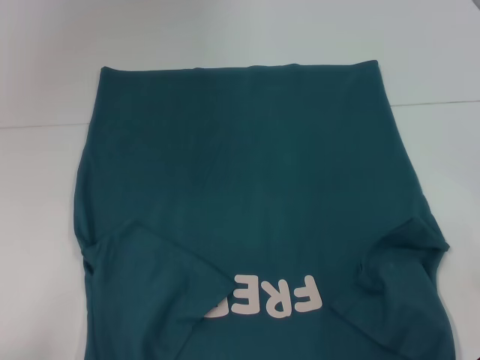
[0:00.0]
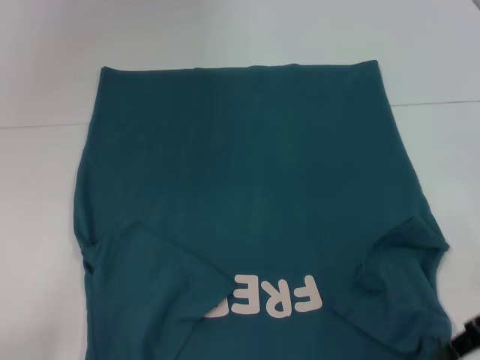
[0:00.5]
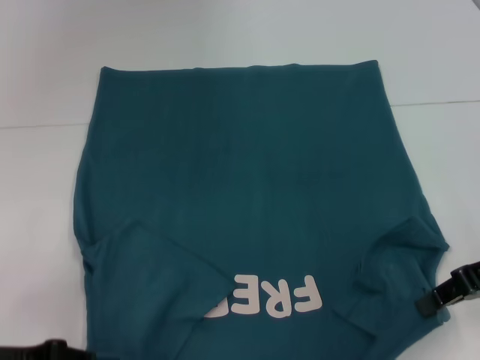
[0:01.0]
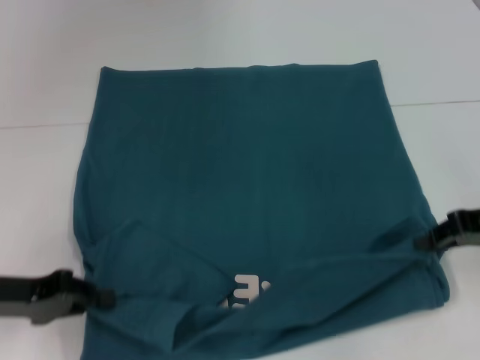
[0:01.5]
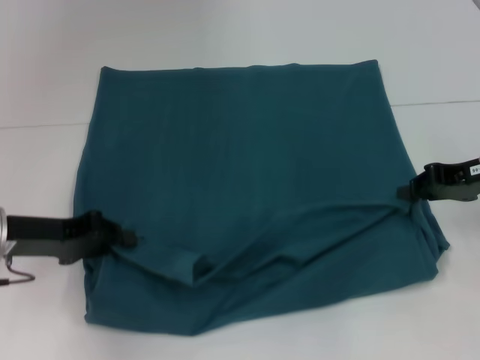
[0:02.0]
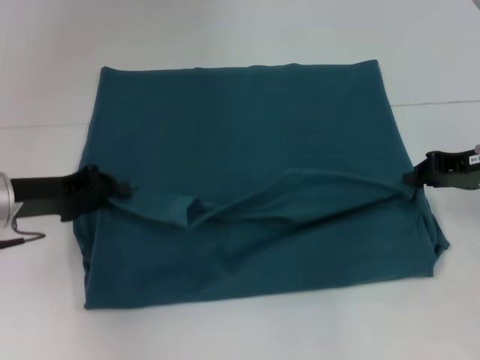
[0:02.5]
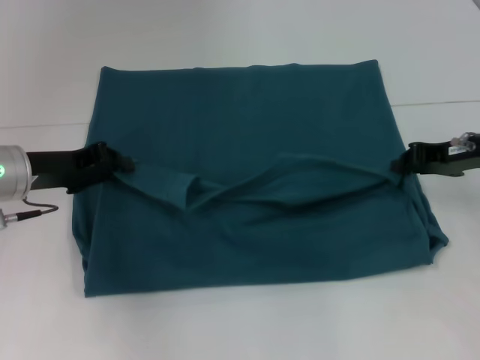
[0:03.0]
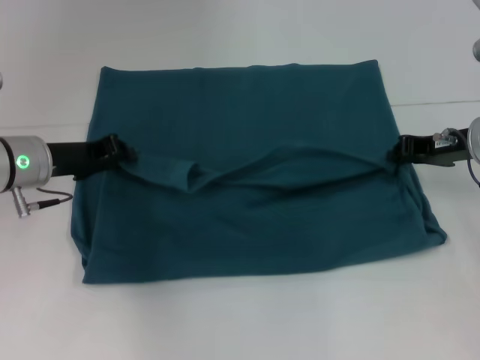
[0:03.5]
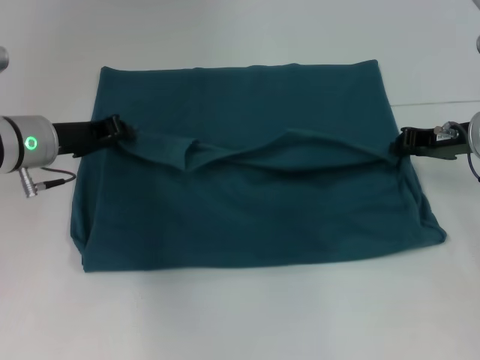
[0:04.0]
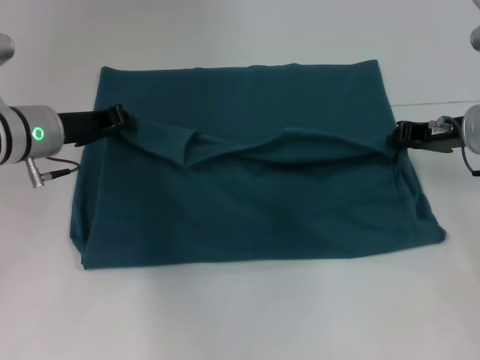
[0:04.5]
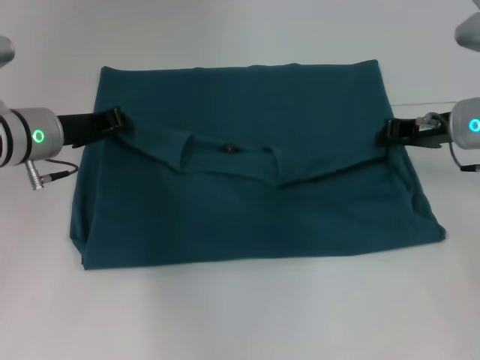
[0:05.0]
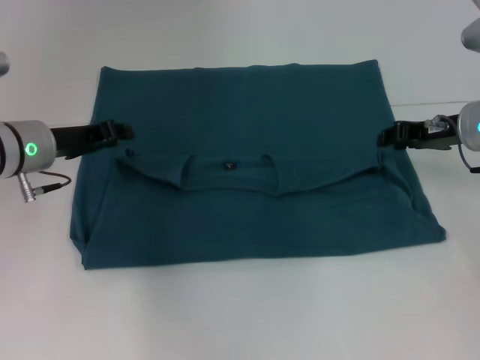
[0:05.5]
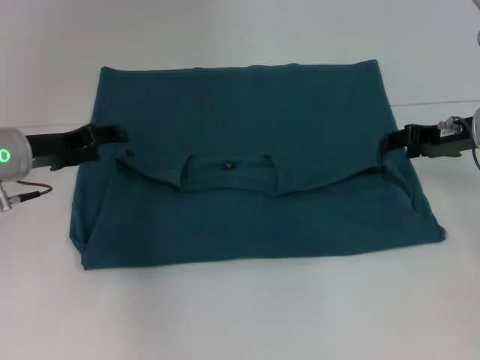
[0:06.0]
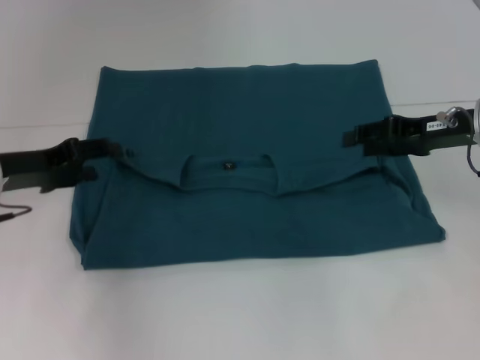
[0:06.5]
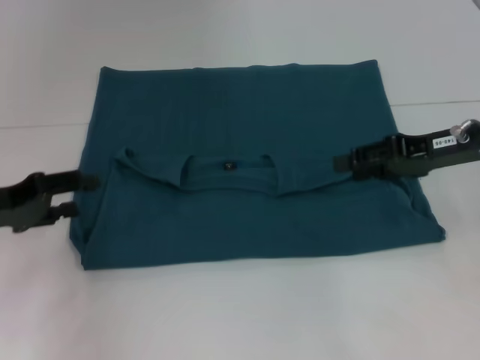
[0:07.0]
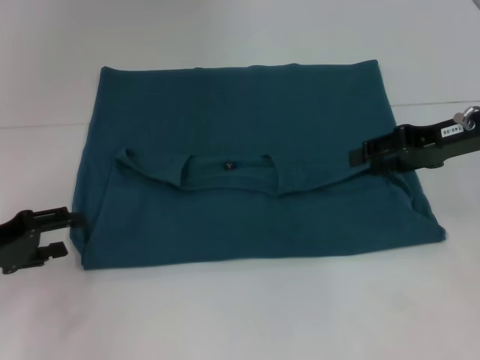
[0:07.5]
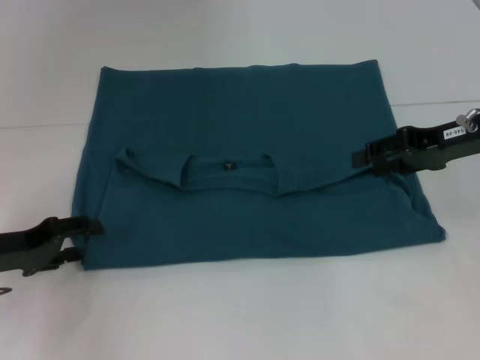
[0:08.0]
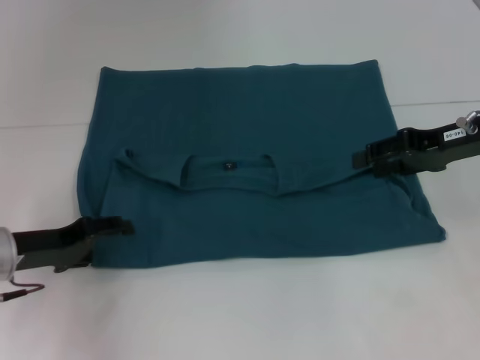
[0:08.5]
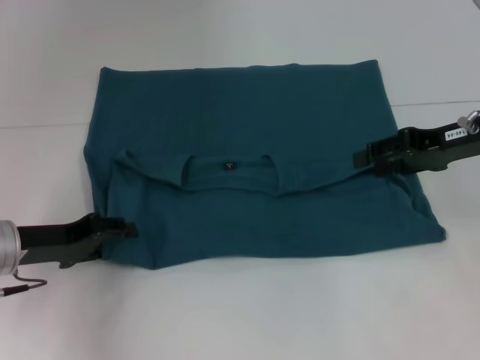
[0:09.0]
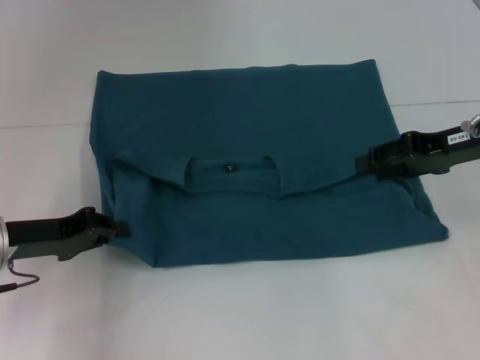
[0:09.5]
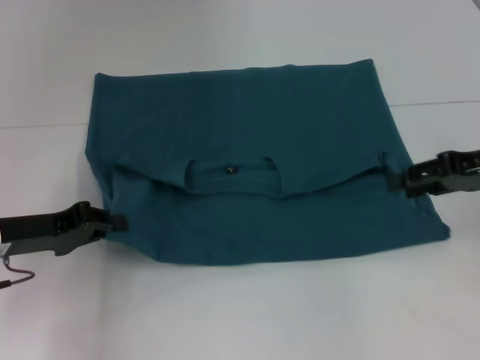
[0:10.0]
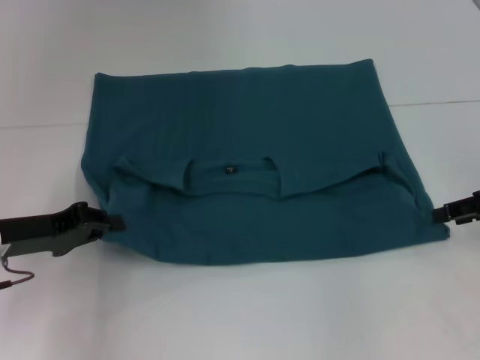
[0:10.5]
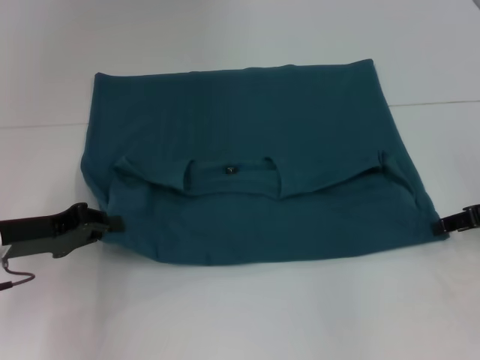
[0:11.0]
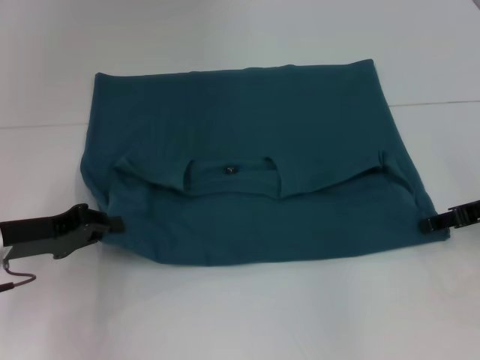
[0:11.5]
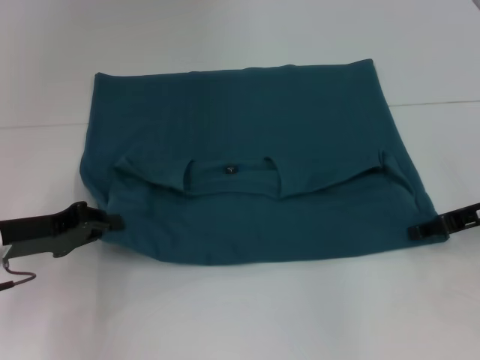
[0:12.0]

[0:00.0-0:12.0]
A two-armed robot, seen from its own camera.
Step, 0:00.0 to 0:05.5: Fold the clothes to the left.
Step, 0:00.0 to 0:05.5: Fold the clothes to the right.
0:00.0 to 0:02.0: The left gripper moves forward, about 15 cm. The right gripper is displaced forward by approximately 10 cm.
0:02.0 to 0:04.0: The left gripper travels forward by some 10 cm; the right gripper ends up approximately 5 cm from where it was.
0:04.0 to 0:06.0: The right gripper opens. The left gripper opens.
0:06.0 to 0:08.0: The left gripper travels backward, to the left and downward by about 10 cm, while the right gripper moves about 5 cm.
0:08.0 to 0:10.0: The left gripper closes.
0:10.0 to 0:12.0: The right gripper goes about 5 cm downward.

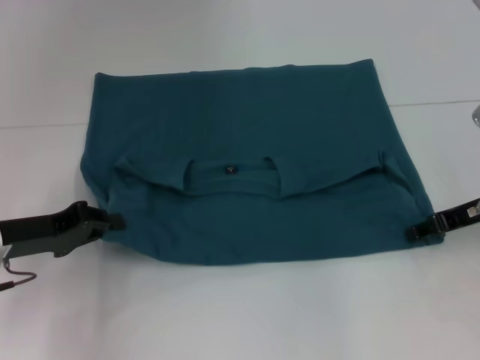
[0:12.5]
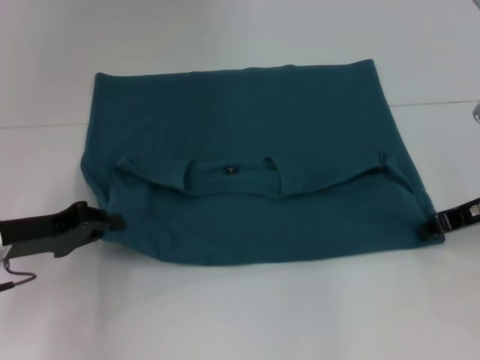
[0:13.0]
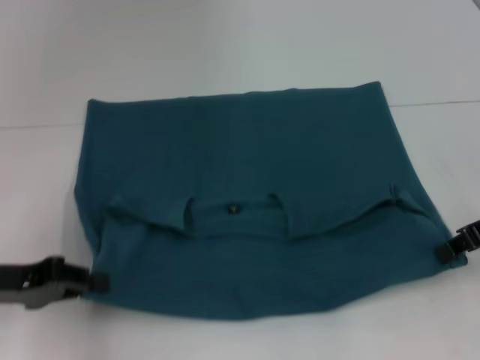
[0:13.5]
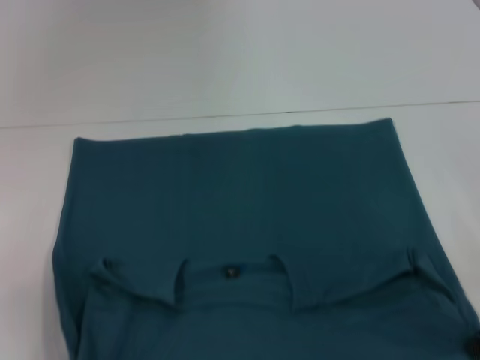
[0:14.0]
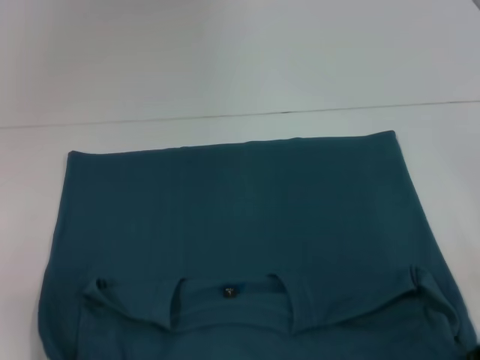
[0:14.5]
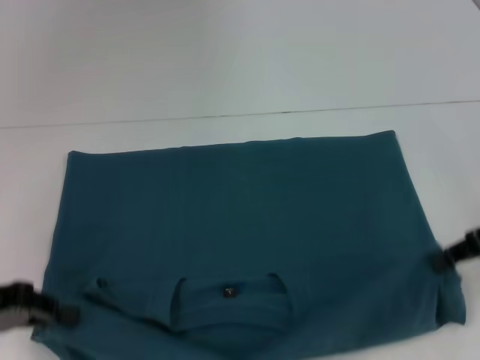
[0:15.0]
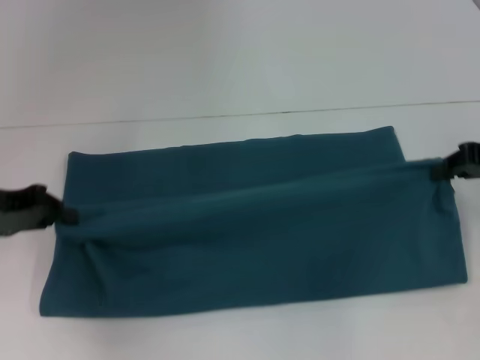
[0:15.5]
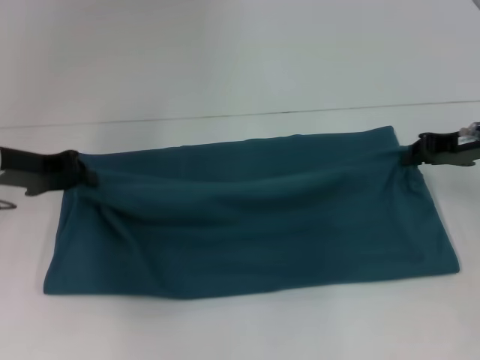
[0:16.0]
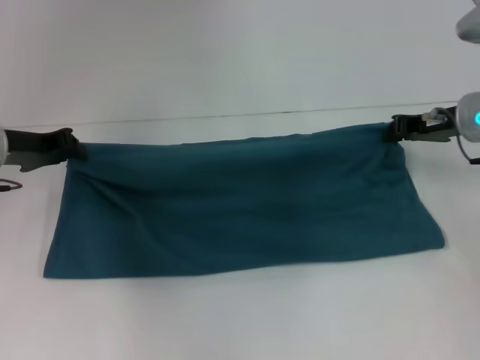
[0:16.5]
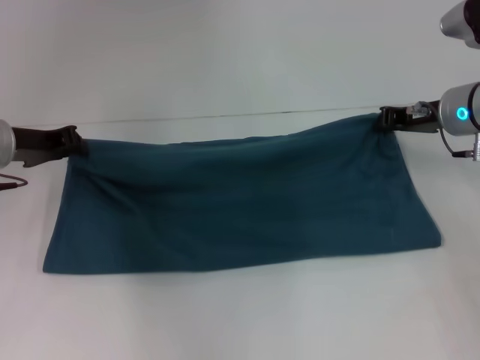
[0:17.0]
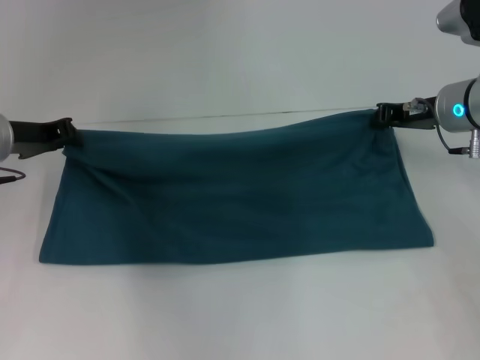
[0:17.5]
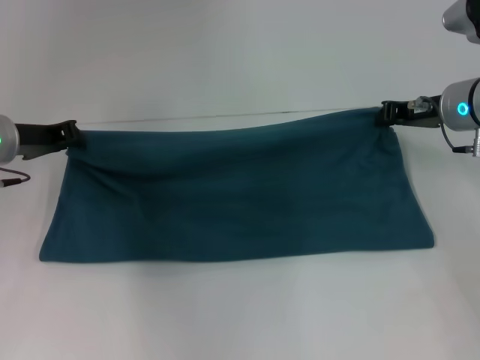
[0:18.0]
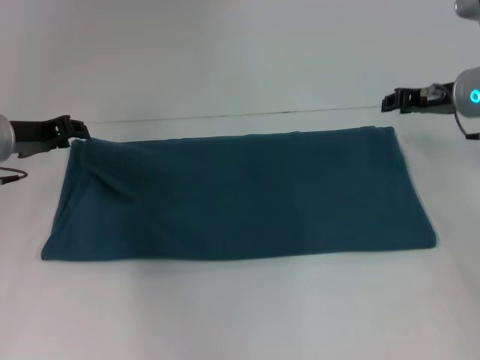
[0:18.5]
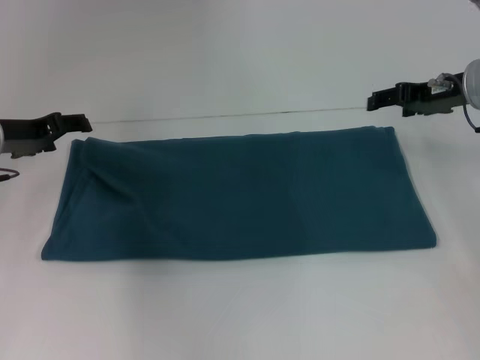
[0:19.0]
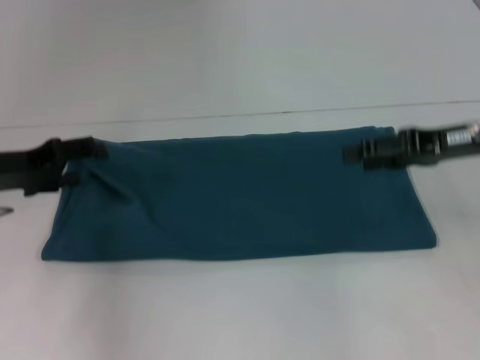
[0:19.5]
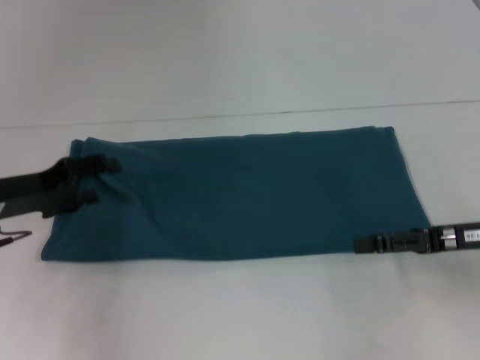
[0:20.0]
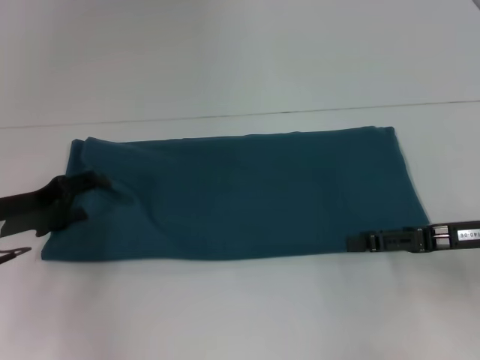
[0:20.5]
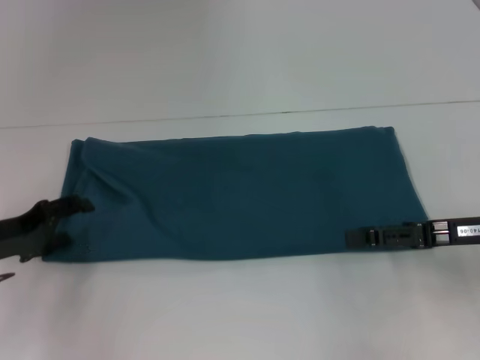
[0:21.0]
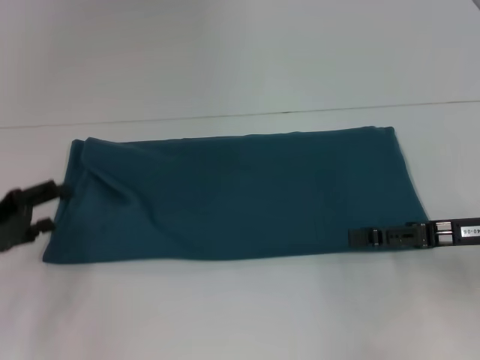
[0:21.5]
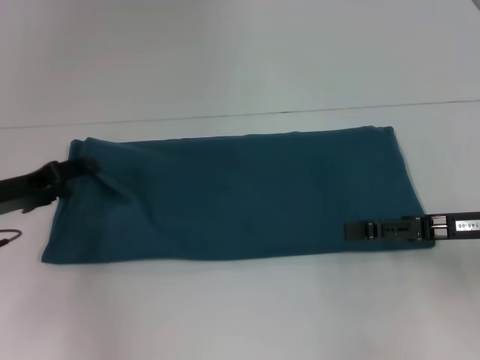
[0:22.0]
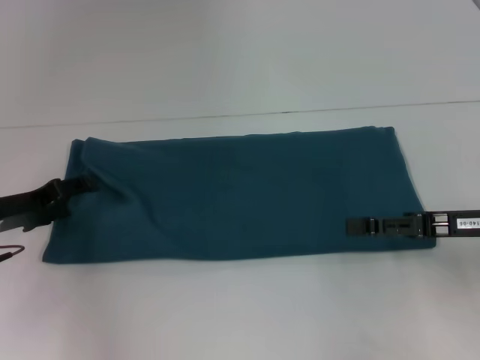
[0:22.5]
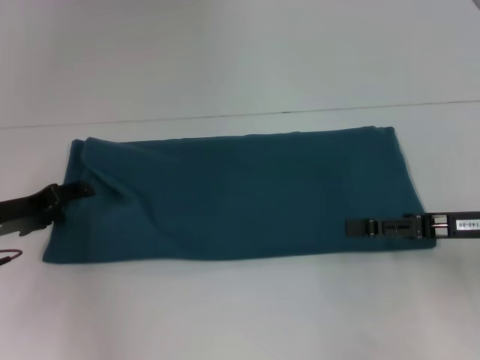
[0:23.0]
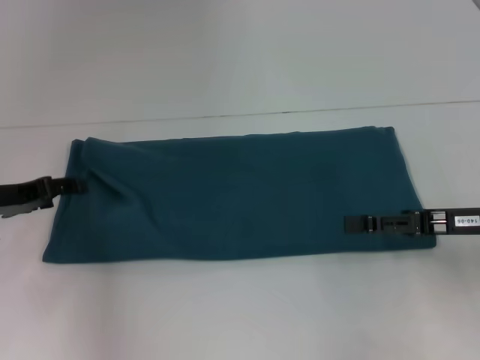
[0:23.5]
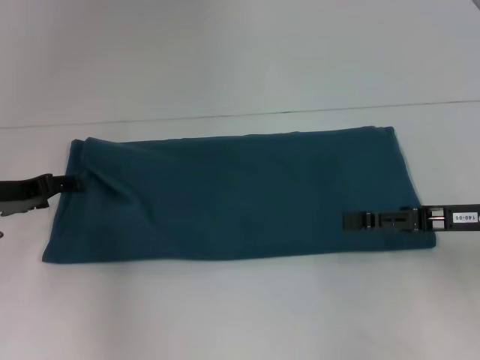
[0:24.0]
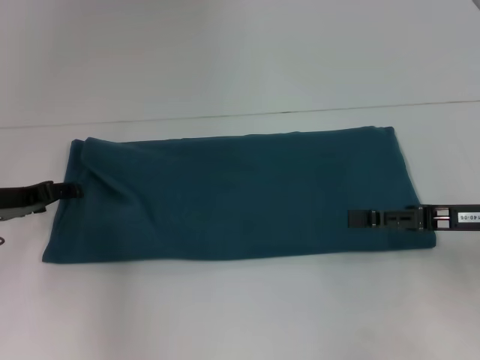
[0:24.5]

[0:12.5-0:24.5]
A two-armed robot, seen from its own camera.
Step, 0:14.5 to 0:18.5: Fold the clothes to the right.
0:12.5 to 0:14.5: Both grippers move backward, about 10 cm. The right gripper closes its fingers.
0:14.5 to 0:16.5: The grippers both shift forward by approximately 15 cm.
0:16.5 to 0:18.5: The grippers make only small movements.
0:18.5 to 0:20.5: The right gripper heads backward, covering about 15 cm, and opens up. The left gripper shifts about 10 cm backward and downward, and opens.
0:20.5 to 0:22.5: The grippers make only small movements.
0:22.5 to 0:24.5: There are only small adjustments of the grippers.

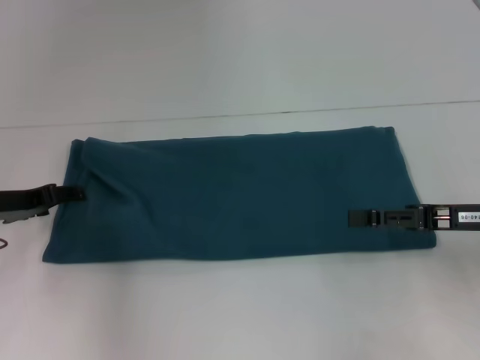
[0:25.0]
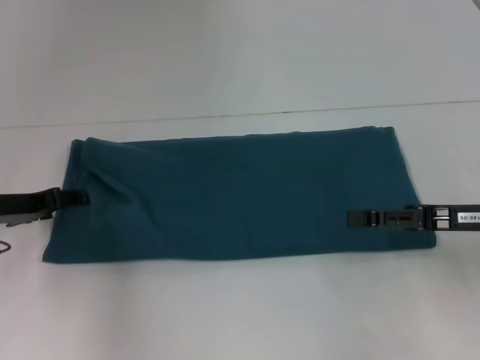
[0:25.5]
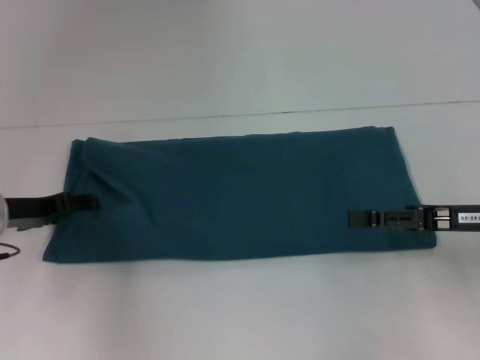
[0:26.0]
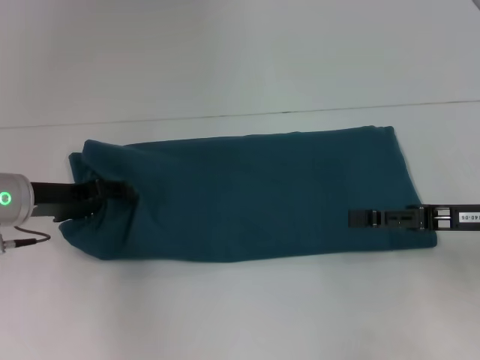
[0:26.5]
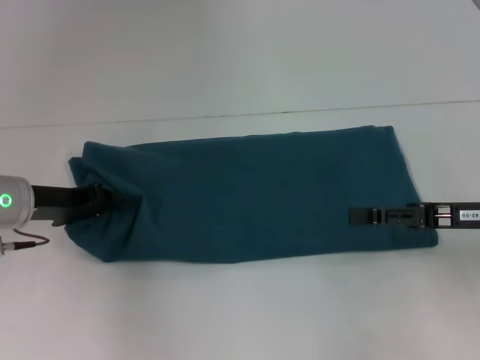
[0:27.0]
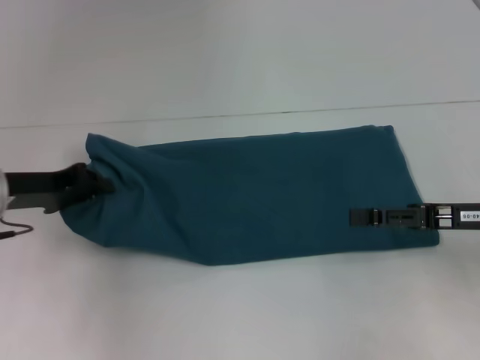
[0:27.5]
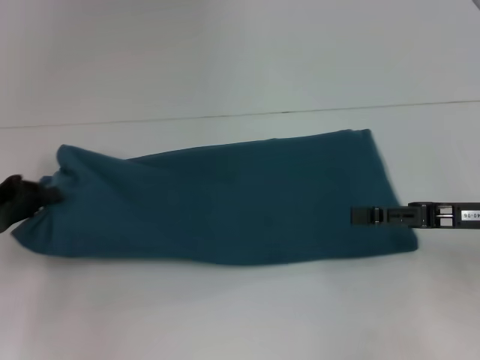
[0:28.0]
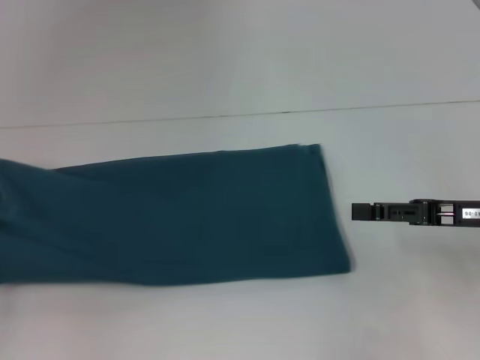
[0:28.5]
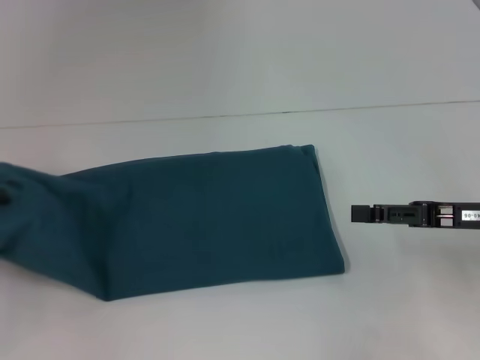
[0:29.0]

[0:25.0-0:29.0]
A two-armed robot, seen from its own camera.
0:25.0 to 0:27.0: The left gripper closes its fingers.
0:27.0 to 0:29.0: The left gripper moves to the left and backward, roughly 15 cm, and closes its fingers.
